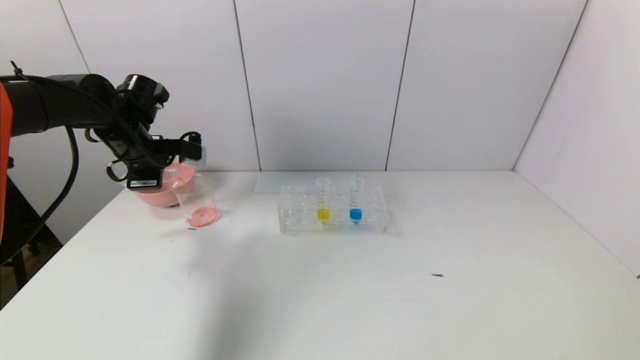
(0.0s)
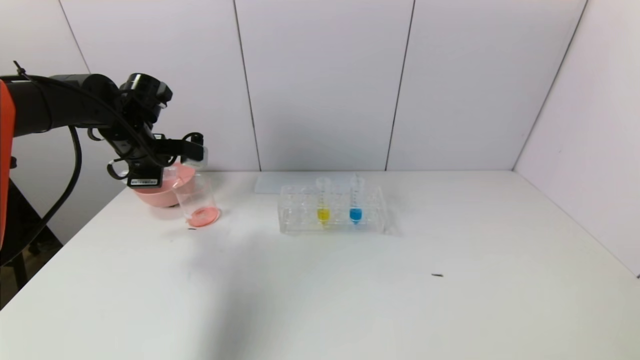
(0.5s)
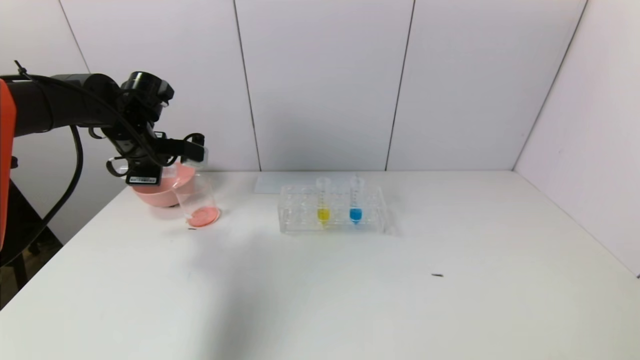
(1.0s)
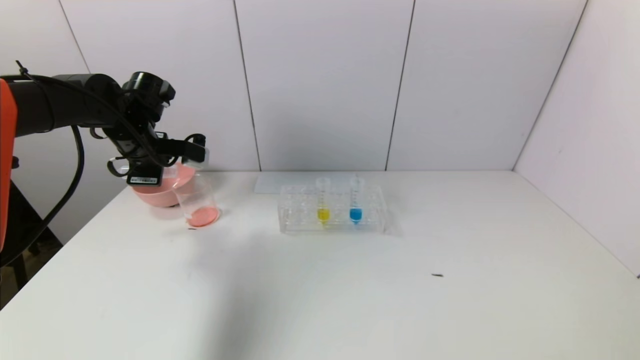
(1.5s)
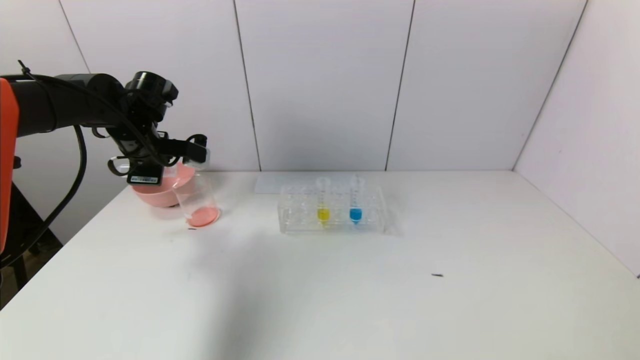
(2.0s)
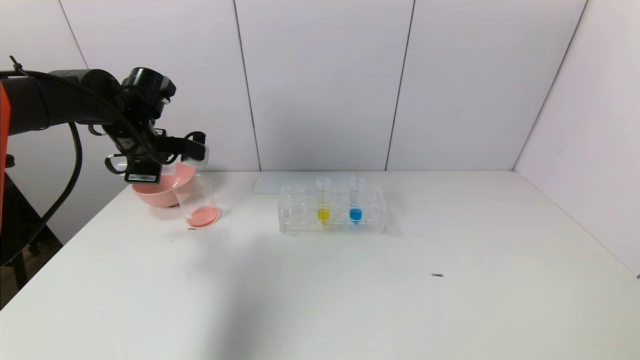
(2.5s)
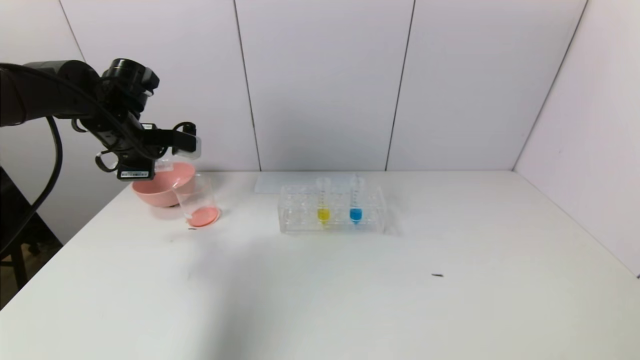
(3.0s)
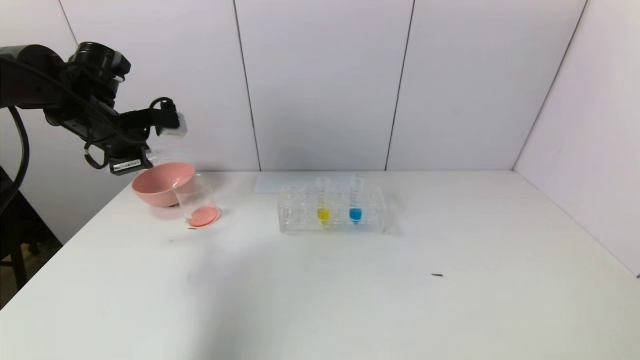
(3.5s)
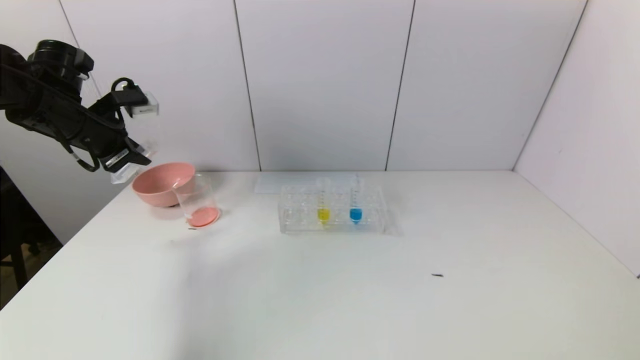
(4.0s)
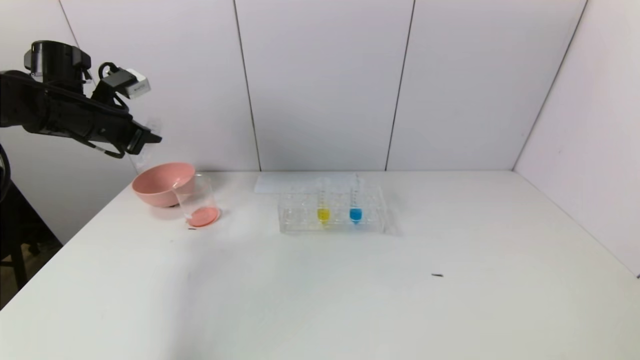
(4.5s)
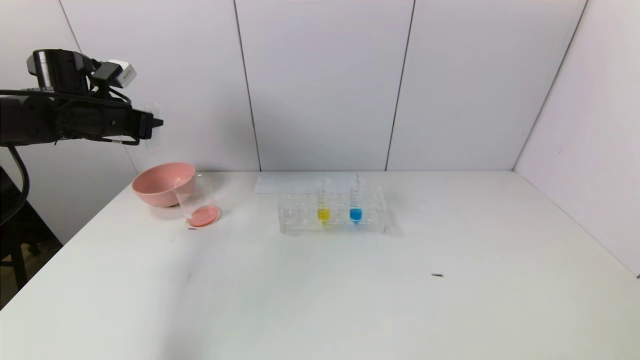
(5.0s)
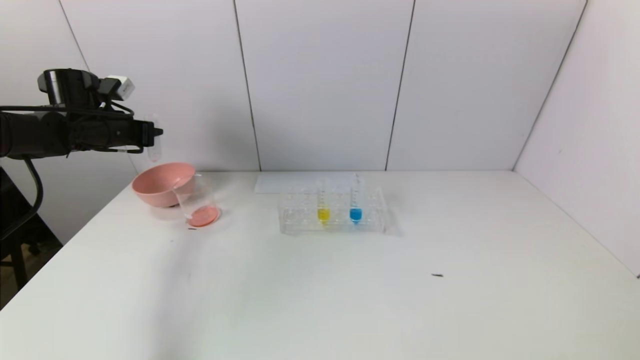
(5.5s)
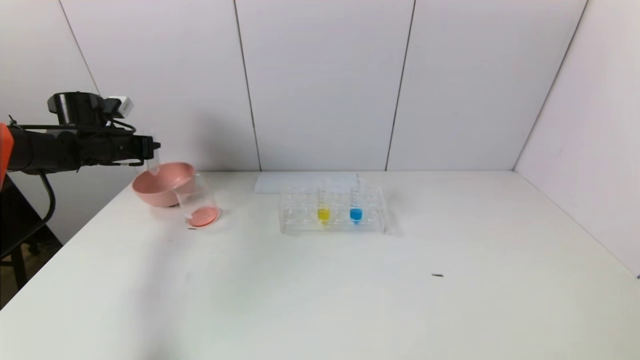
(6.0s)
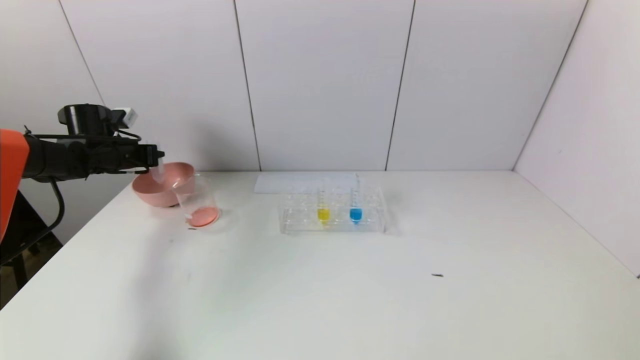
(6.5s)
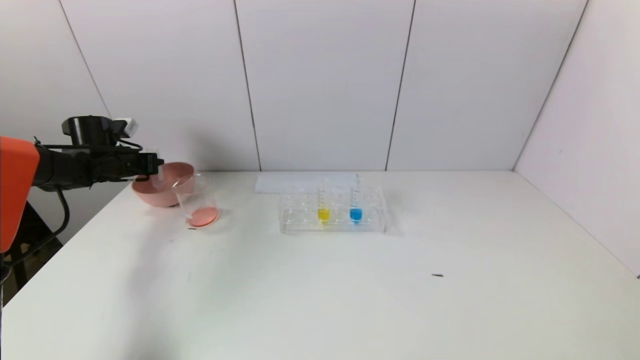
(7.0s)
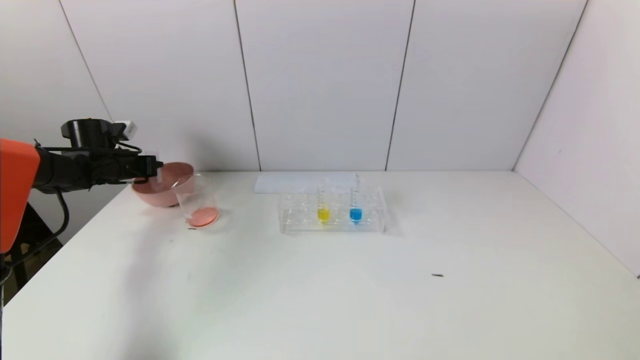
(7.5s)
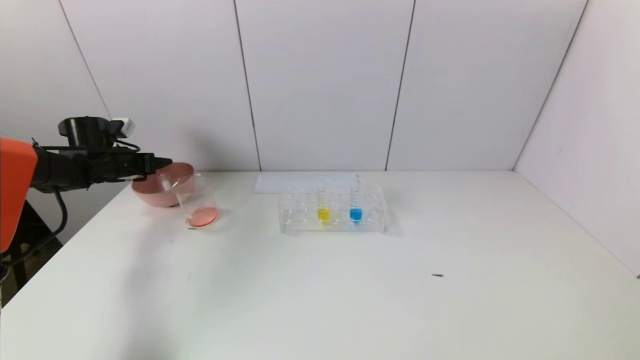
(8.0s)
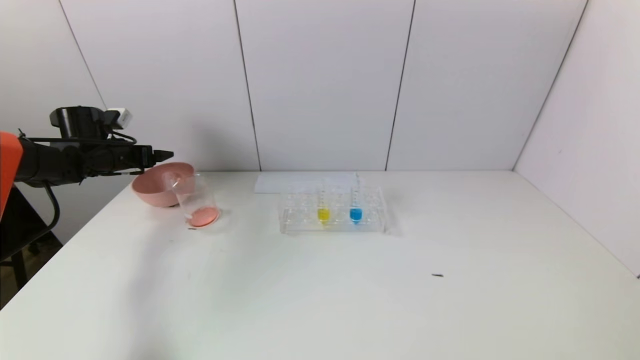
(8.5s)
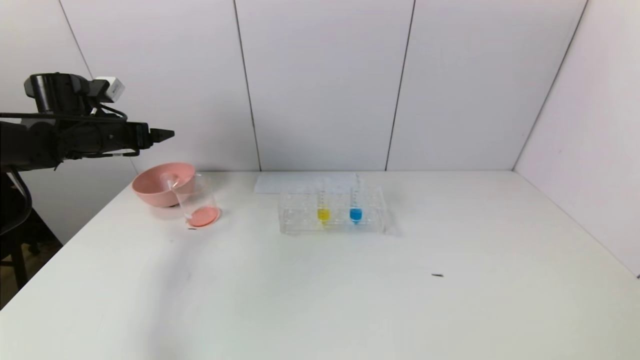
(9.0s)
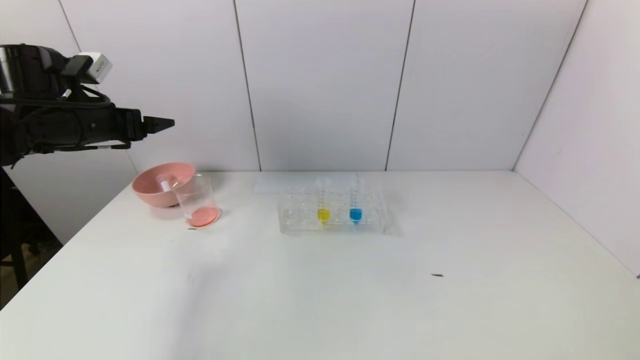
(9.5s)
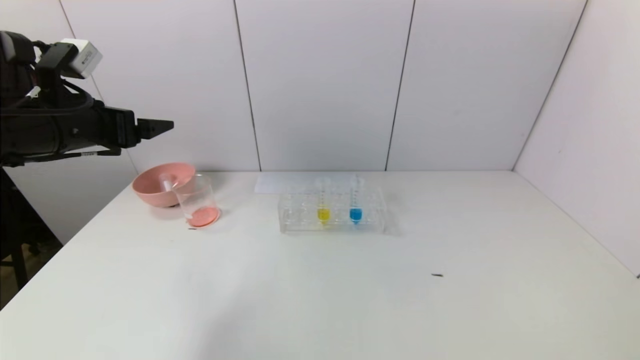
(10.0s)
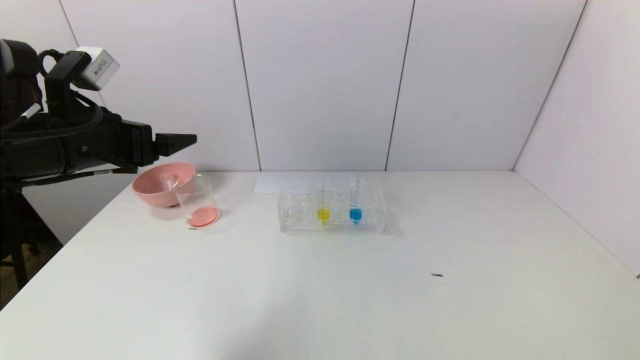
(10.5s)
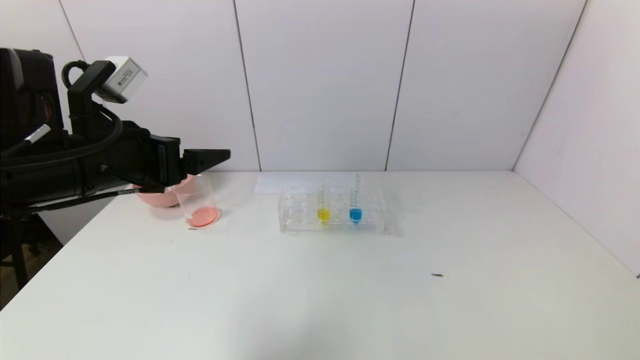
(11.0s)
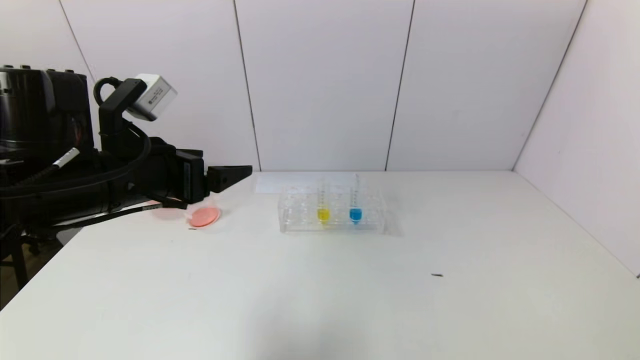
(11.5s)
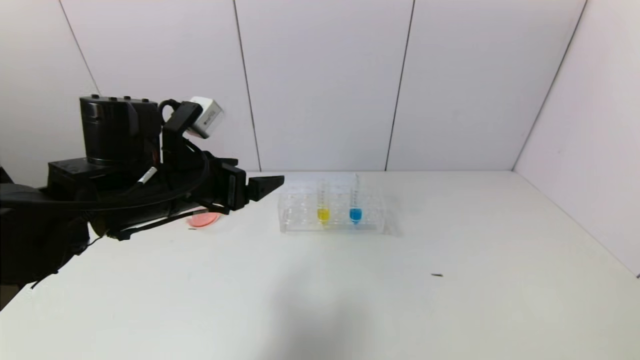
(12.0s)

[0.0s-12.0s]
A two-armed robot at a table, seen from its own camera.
Task of the whole recording: pick up the test tube with yellow pigment and the test tube with red pigment by grippers and pour them into the beaker.
Step, 1.5s to 8.0s: Place the test tube into the pink bowl with the left gripper.
0.0s to 2.0s: The grippers move only a little.
2.0s to 4.0s: The left gripper is displaced to the left by approximately 5 cm.
4.0s to 6.0s: The left gripper heads forward, downward and to the left, covering approximately 15 cm.
6.0s to 8.0s: The left gripper shifts by some 5 cm, and opens its fingers.
8.0s to 10.0s: The left gripper is displaced backward, upward and to the right by approximately 25 cm.
10.0s to 12.0s: The left gripper heads to the right and downward, covering about 15 cm.

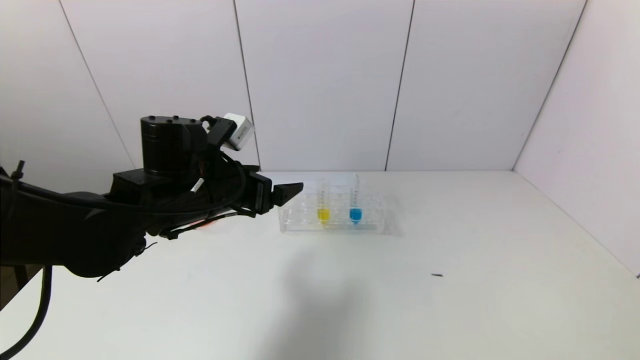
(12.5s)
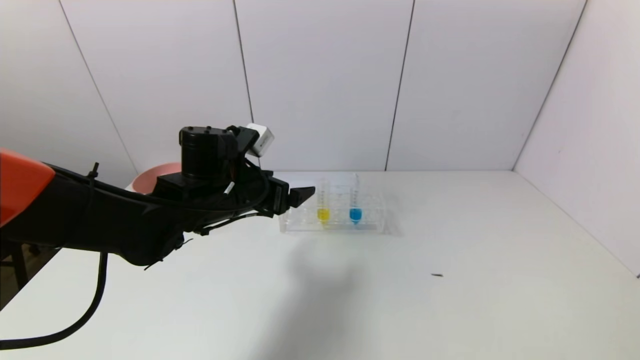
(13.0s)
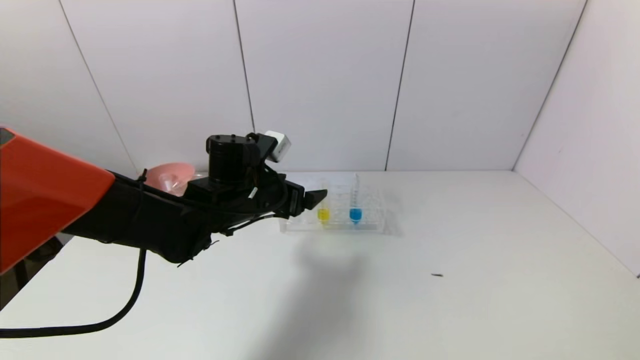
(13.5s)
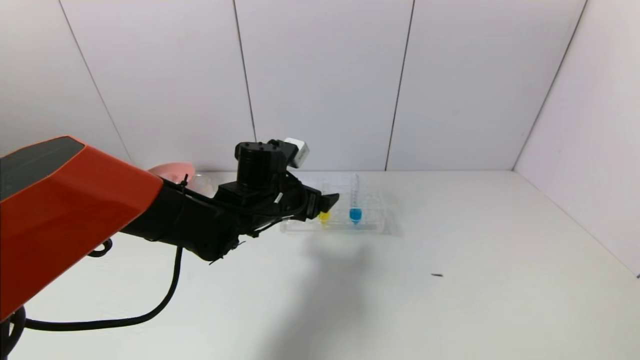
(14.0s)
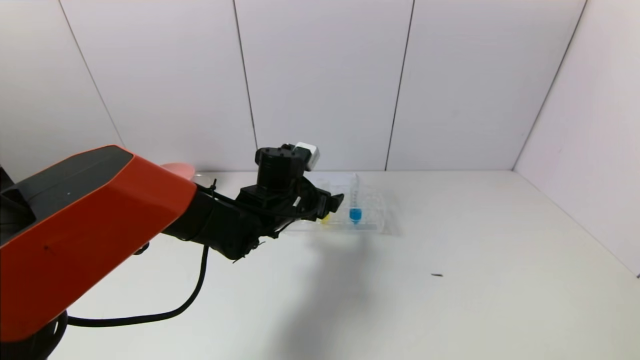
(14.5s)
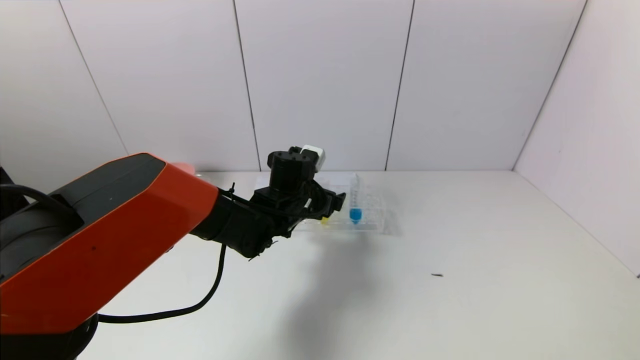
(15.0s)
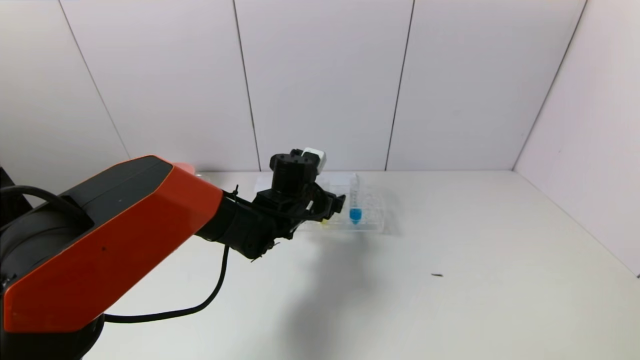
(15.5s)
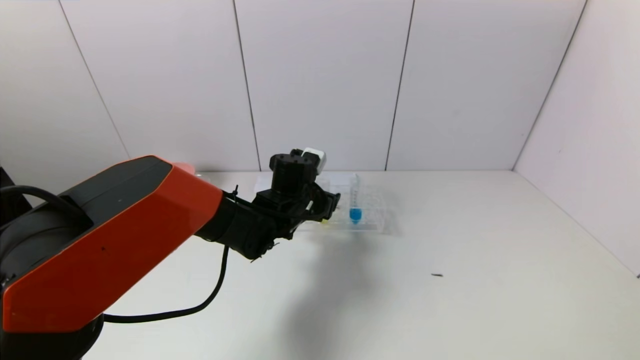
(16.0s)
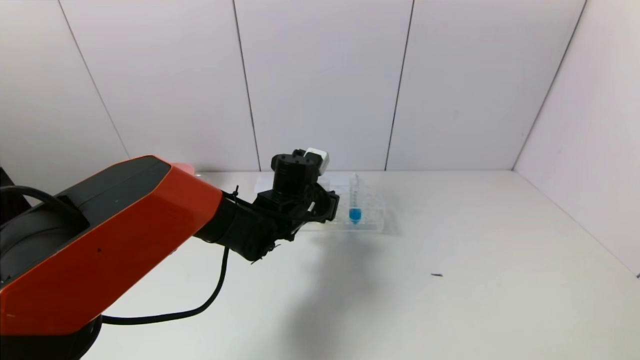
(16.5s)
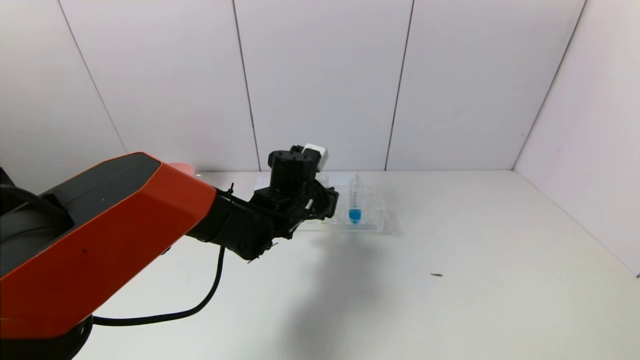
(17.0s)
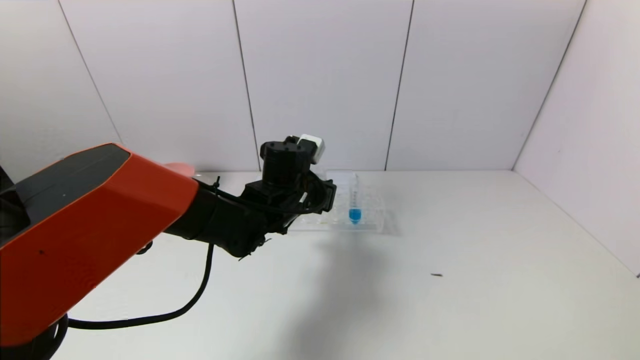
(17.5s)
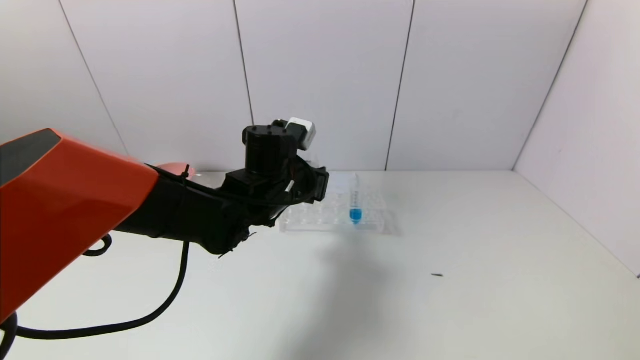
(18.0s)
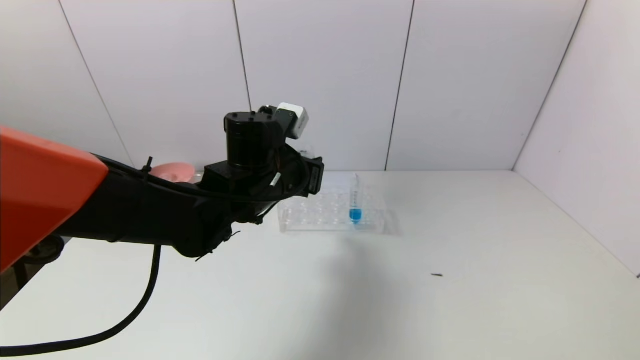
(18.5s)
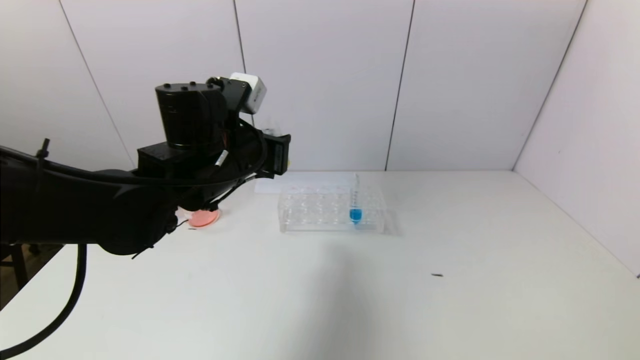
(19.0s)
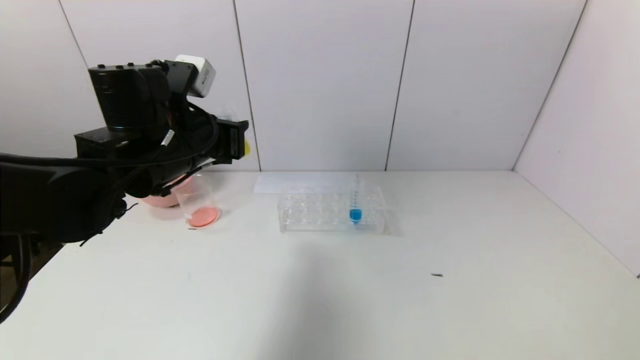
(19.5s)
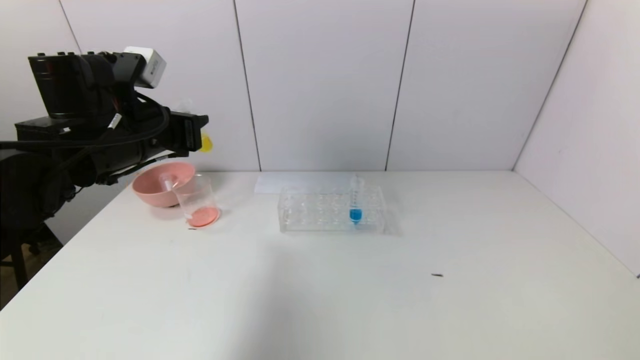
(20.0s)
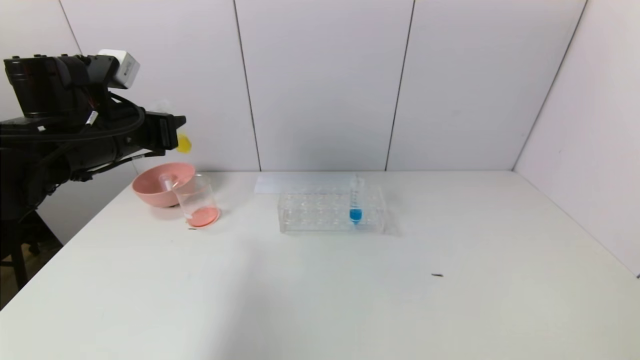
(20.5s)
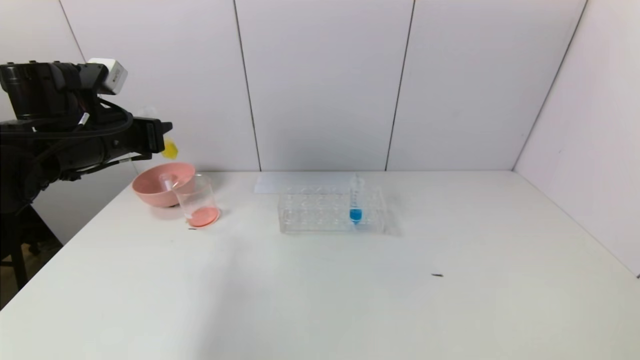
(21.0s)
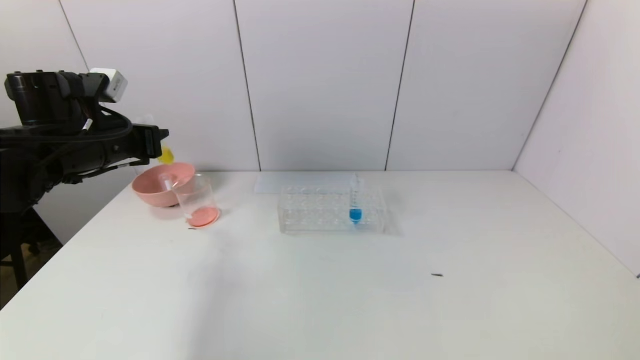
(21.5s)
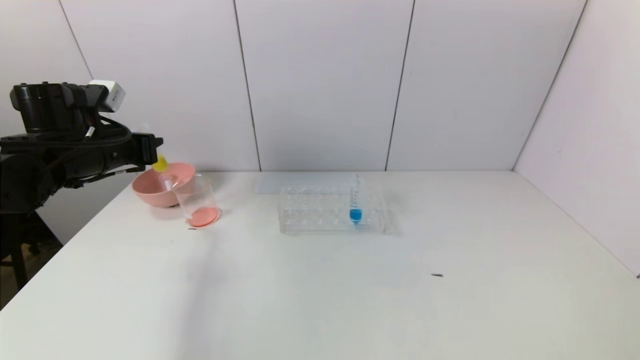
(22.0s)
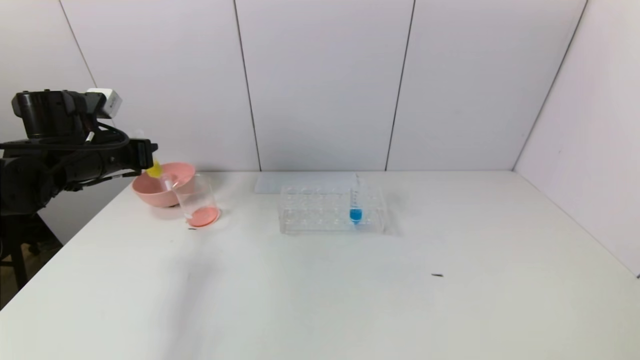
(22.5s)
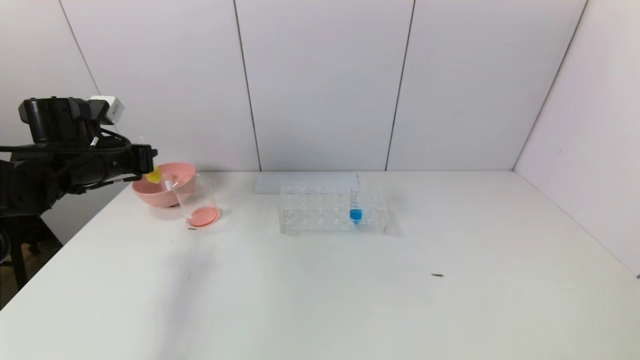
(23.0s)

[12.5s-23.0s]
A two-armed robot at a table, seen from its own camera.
Task of the whole recording: pick up the test tube with yellow pigment and the test tube with red pigment by grippers and pour them into the beaker.
Step, 12.5s to 16.5s: Grasp the yellow reagent with the left gripper.
12.5s to 14.5s: The left gripper heads to the right, forward and downward, covering roughly 15 cm.
14.5s to 16.5s: The left gripper closes its fingers.
16.5s to 19.0s: The left gripper is displaced upward, to the left and backward by roughly 15 cm.
19.0s to 21.0s: The left gripper is displaced to the left by about 15 cm.
21.0s to 23.0s: The left gripper changes place by roughly 5 cm.
